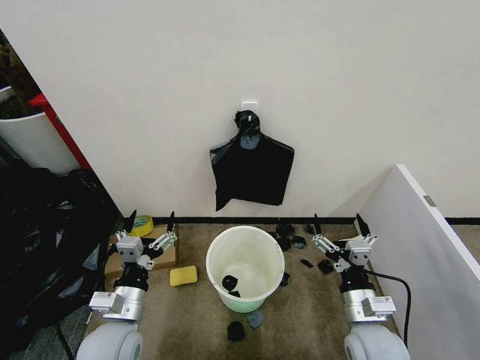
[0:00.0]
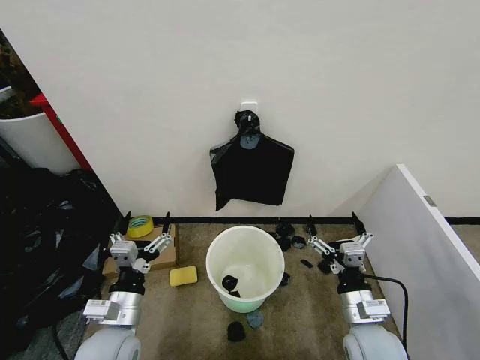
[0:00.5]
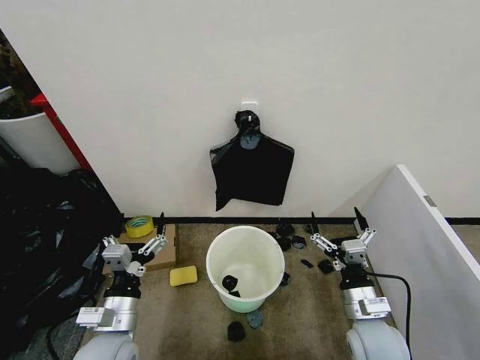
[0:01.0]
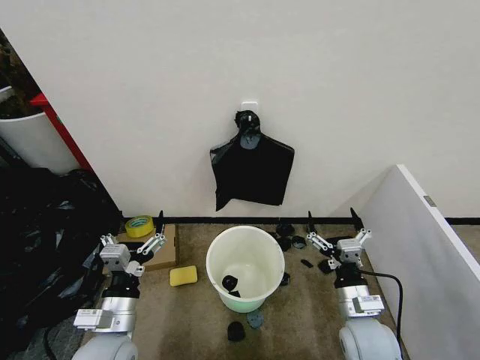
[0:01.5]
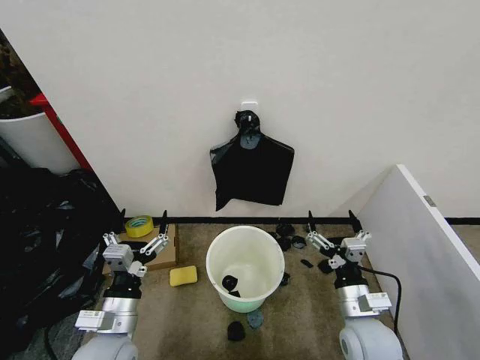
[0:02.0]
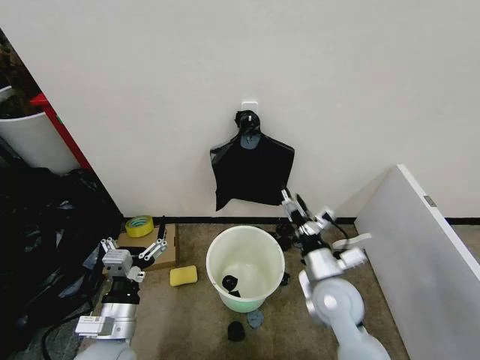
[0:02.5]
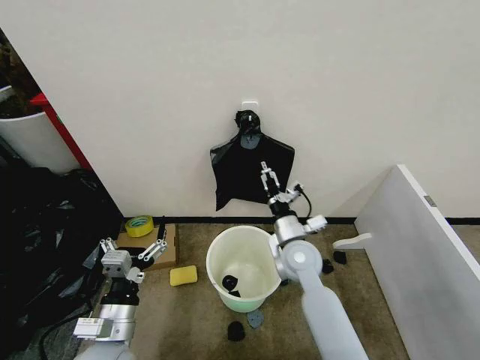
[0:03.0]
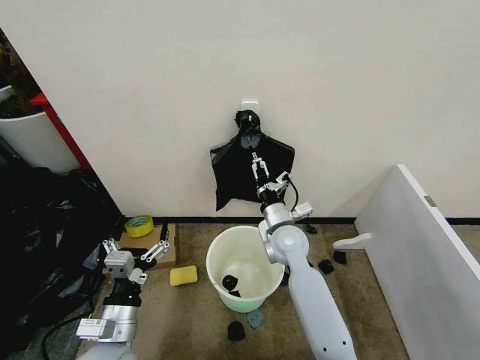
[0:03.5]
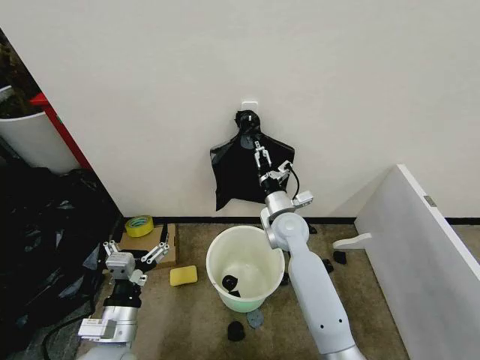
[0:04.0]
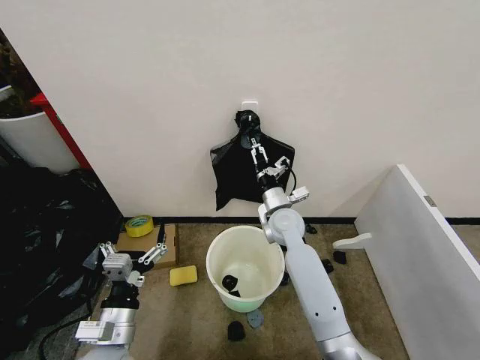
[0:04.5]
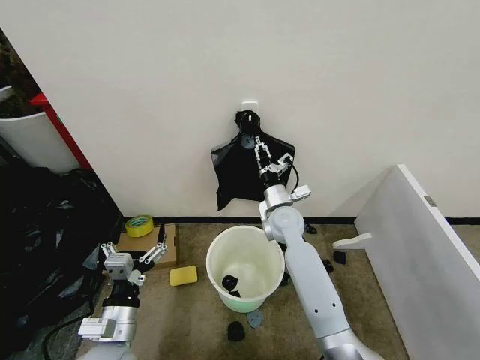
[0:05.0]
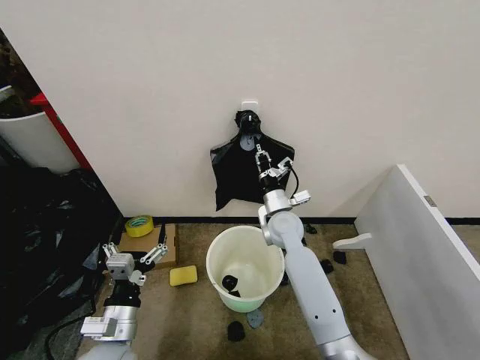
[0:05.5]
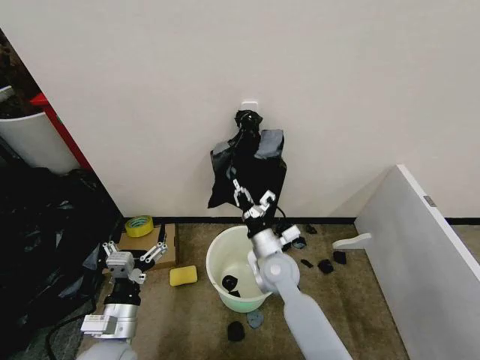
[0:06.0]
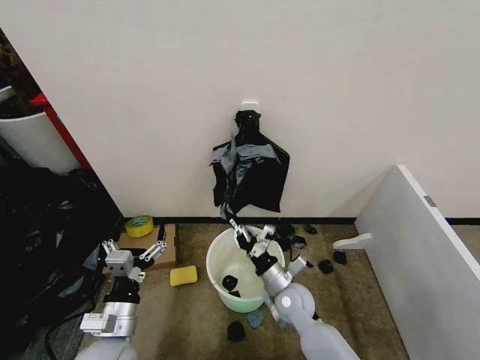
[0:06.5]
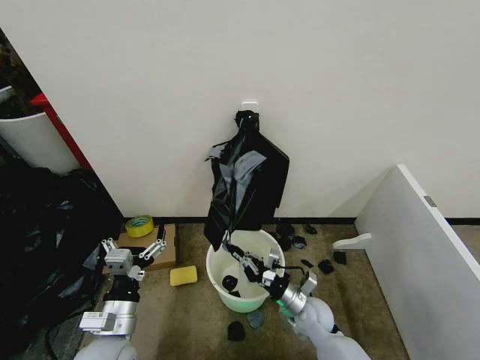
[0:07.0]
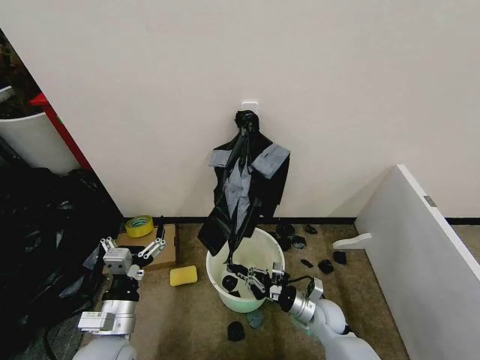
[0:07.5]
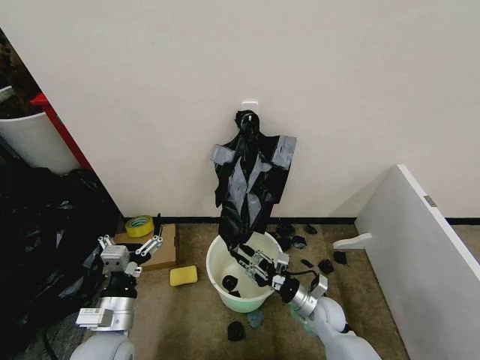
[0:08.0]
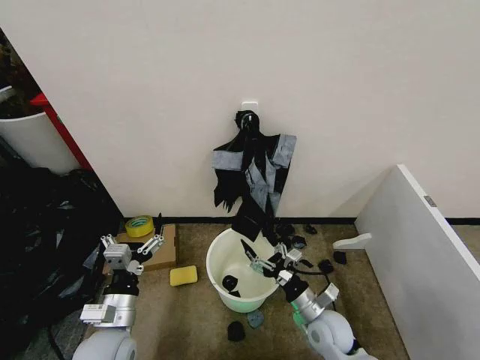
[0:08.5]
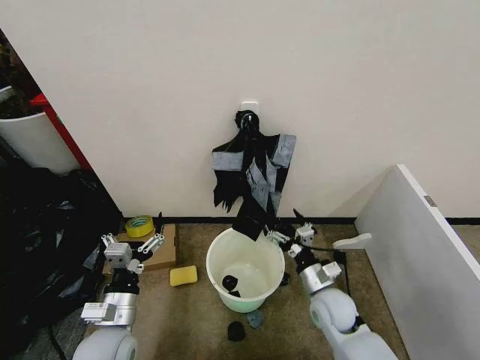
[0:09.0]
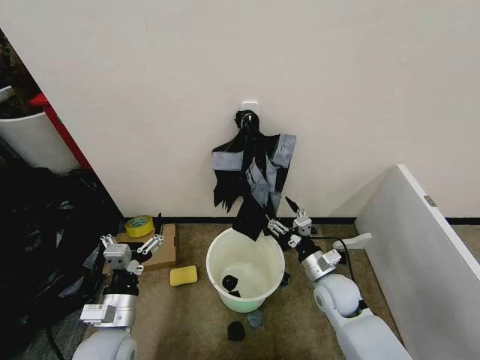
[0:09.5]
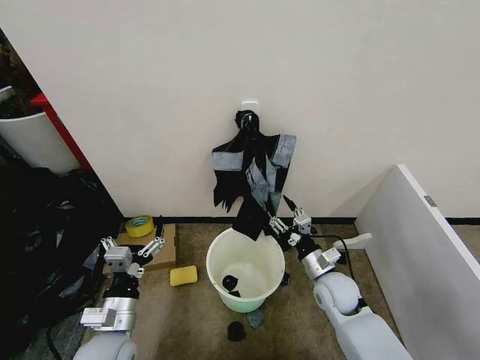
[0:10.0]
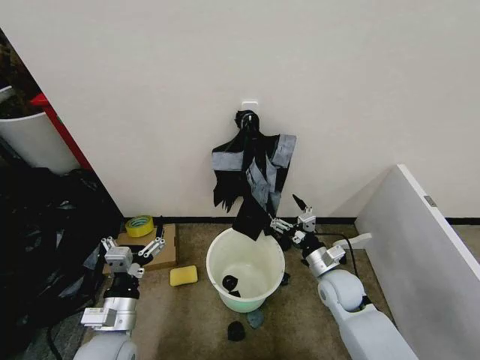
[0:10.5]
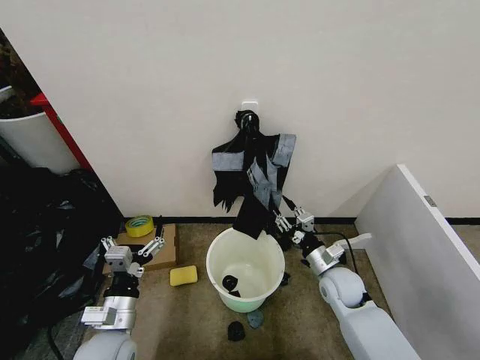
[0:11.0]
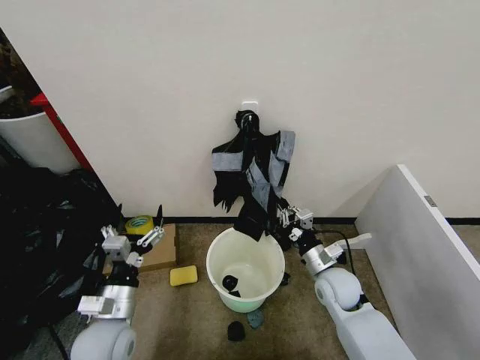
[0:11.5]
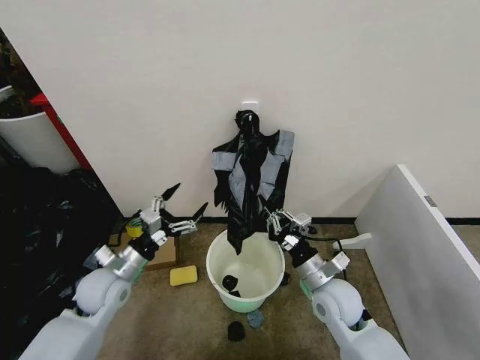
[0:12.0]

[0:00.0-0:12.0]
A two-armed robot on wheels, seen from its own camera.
Task of the whole recording: Place the garbage bag over the trash bin.
0:02.0 to 0:04.0: The right gripper goes roughly 25 cm forward and to the left.
0:04.0 to 0:06.0: The right gripper heads backward and downward, covering approximately 10 cm, and closes its fingers.
0:06.0 to 0:08.0: The right gripper moves downward, to the right and backward, approximately 20 cm.
0:08.0 to 0:10.0: The right gripper travels upward by approximately 10 cm, and opens, then closes once more.
0:10.0 to 0:12.0: The left gripper moves forward, roughly 10 cm. The right gripper shifts about 5 cm upward, and closes its fingers.

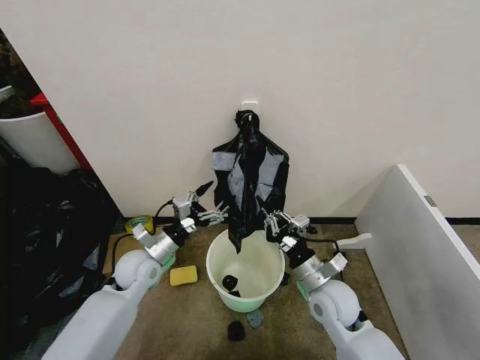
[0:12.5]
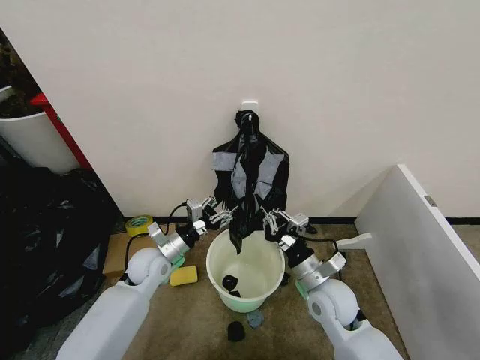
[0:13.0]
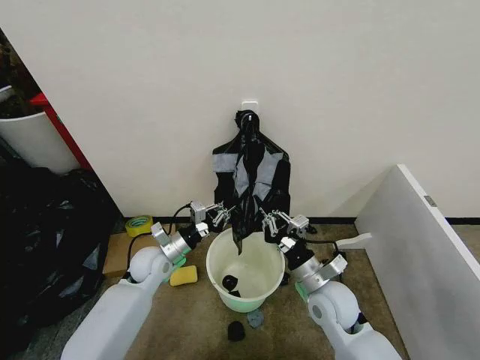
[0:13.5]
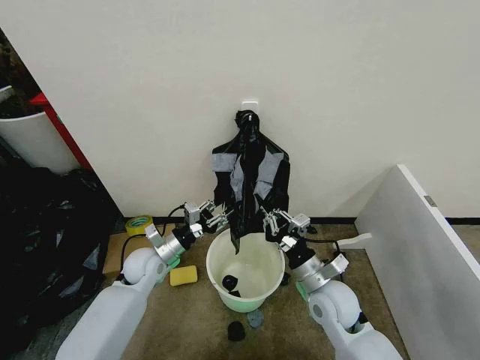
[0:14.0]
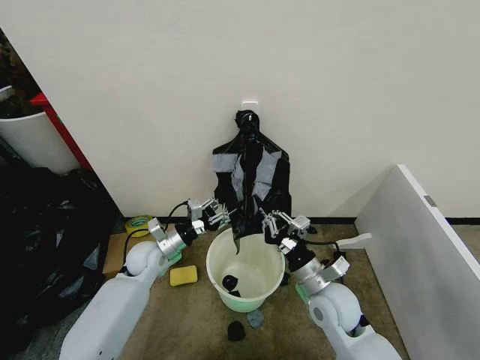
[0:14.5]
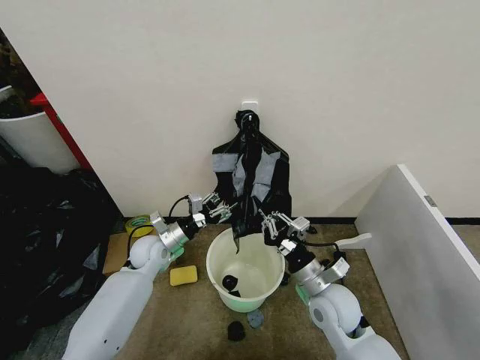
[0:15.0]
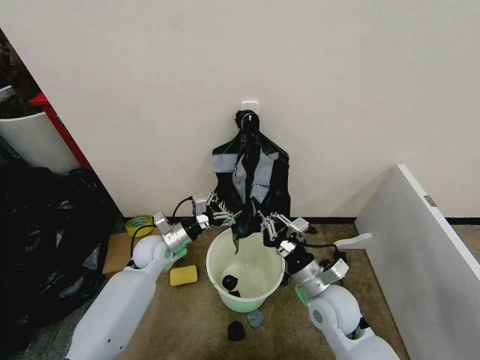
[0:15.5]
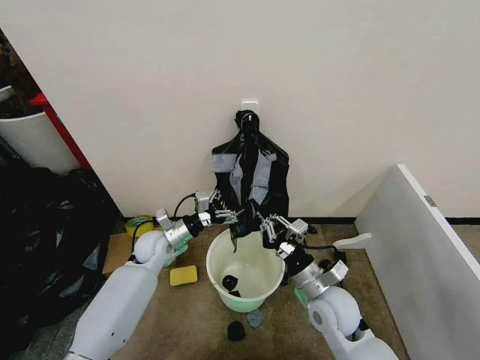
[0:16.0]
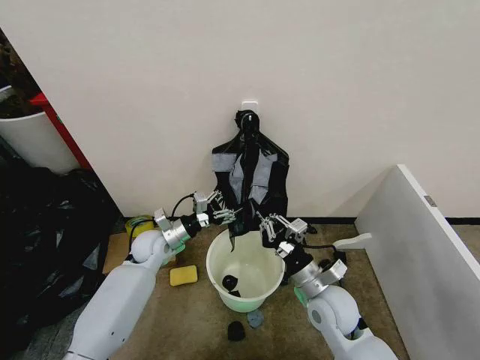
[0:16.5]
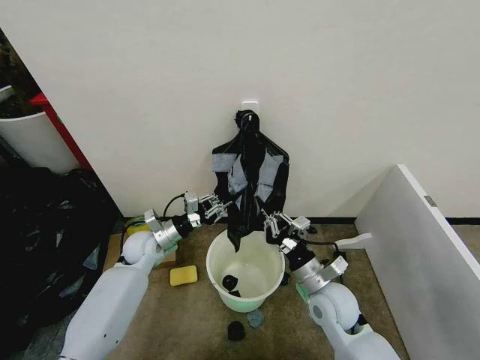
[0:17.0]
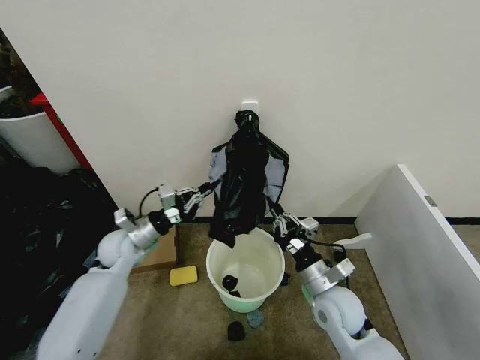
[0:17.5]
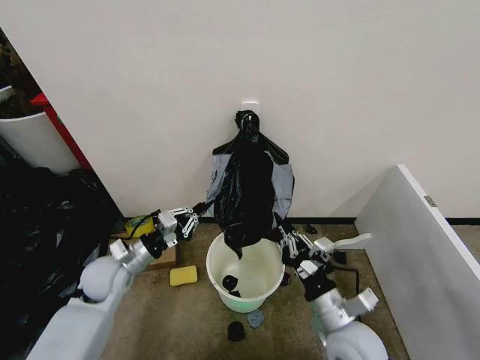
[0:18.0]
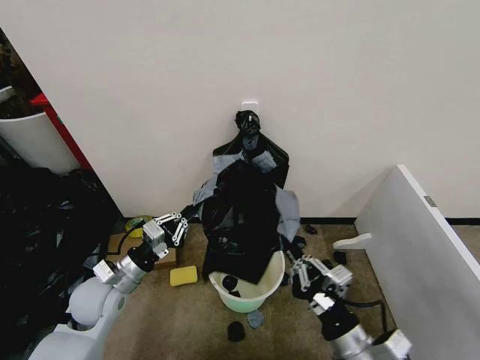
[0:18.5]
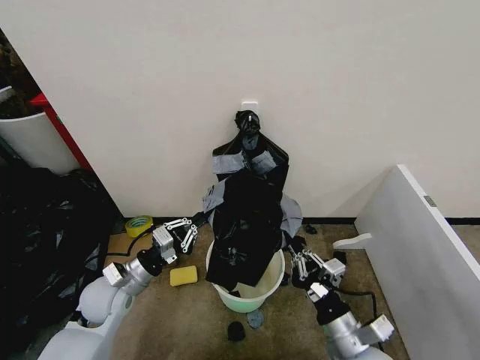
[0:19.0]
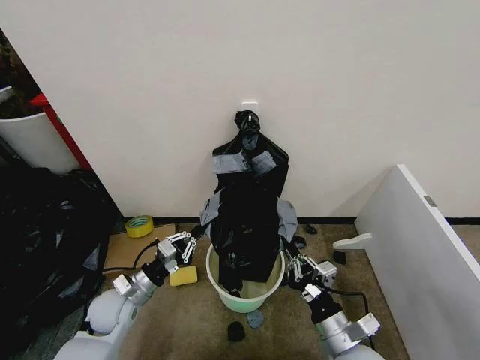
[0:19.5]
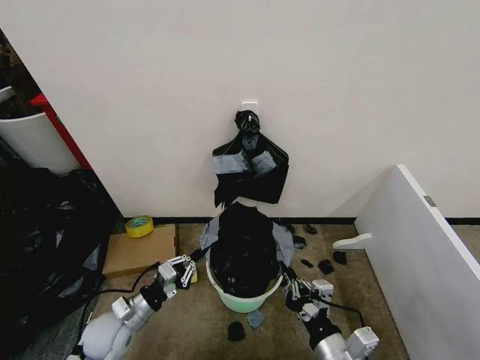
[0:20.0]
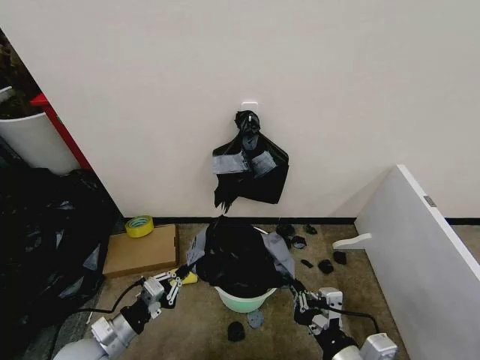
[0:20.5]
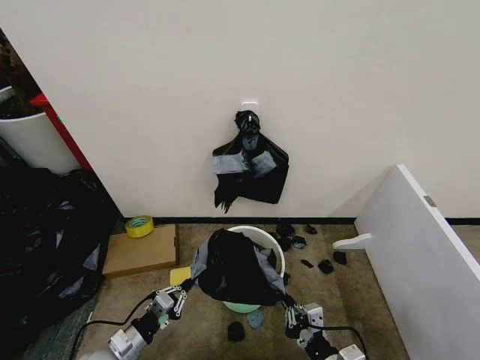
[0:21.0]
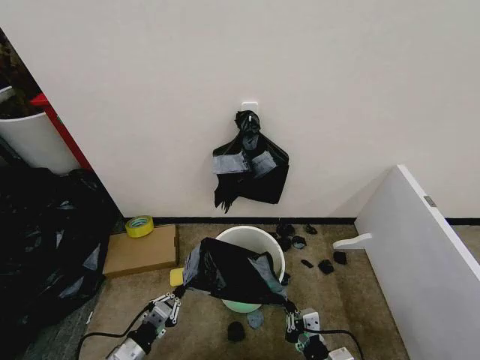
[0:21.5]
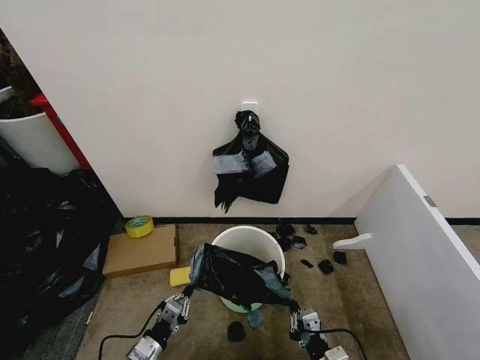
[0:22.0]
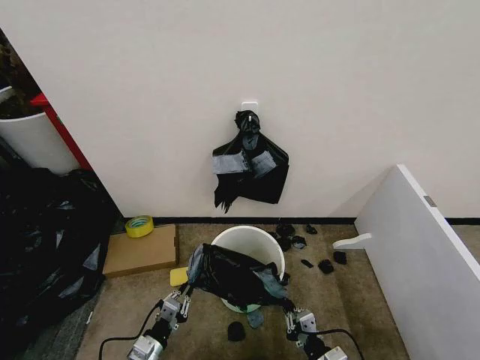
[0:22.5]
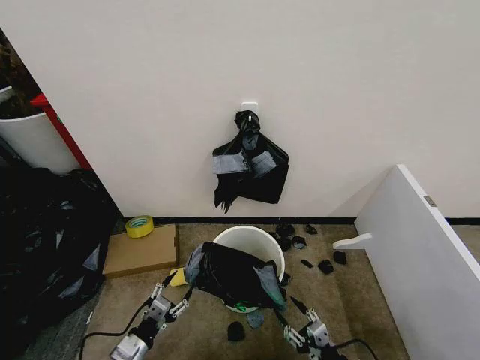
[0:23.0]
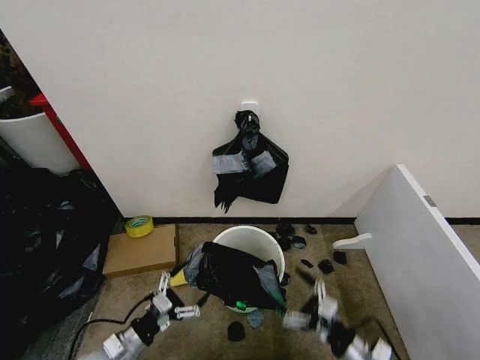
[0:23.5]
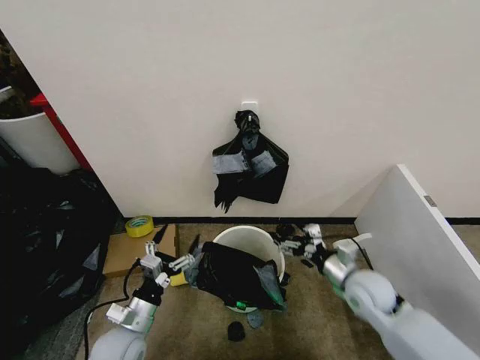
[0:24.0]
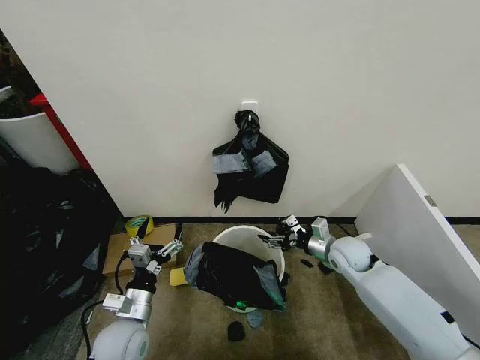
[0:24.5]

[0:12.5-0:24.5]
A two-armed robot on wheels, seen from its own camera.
Task of the whole recording: Place the garbage bag over the trash bin.
0:12.5 to 0:14.5: The left gripper ends up approximately 5 cm from where it was, and closes up.
0:14.5 to 0:16.5: The grippers move only a little.
0:16.5 to 0:18.5: The grippers both shift backward by some 15 cm. The left gripper closes.
0:18.5 to 0:20.5: The right gripper reaches approximately 5 cm downward, then returns, while the left gripper is displaced backward and downward by some 10 cm.
0:20.5 to 0:22.5: The left gripper heads downward, covering some 10 cm. Meanwhile the right gripper shifts some 20 cm downward.
0:22.5 to 0:24.5: The right gripper travels forward by approximately 30 cm, and opens up. Meanwhile the left gripper travels upward and forward by approximately 15 cm, and opens up.

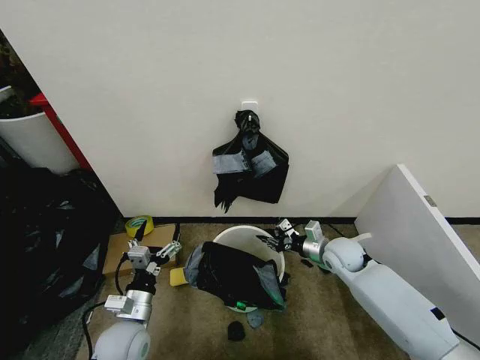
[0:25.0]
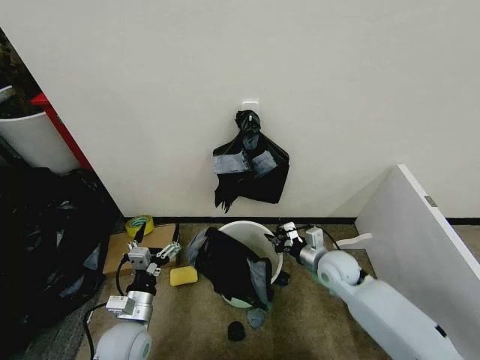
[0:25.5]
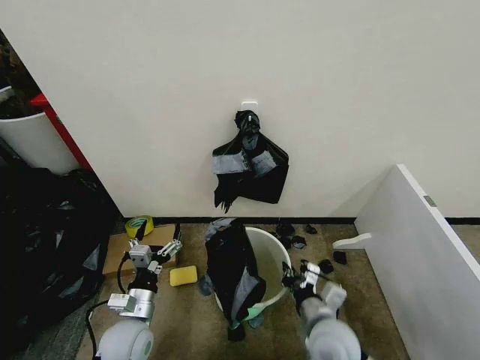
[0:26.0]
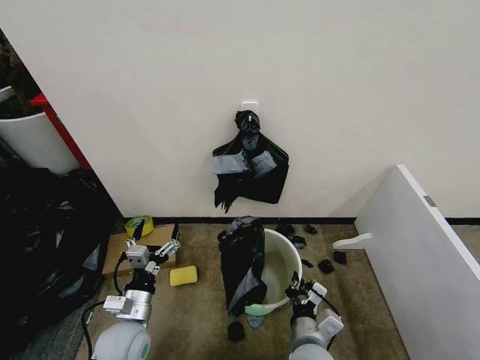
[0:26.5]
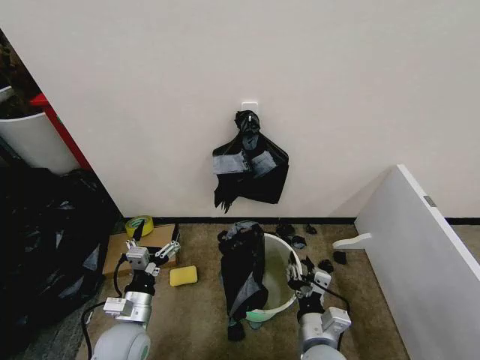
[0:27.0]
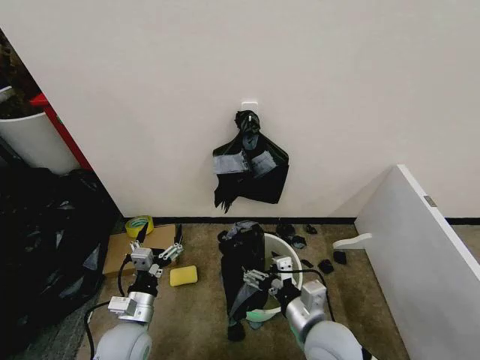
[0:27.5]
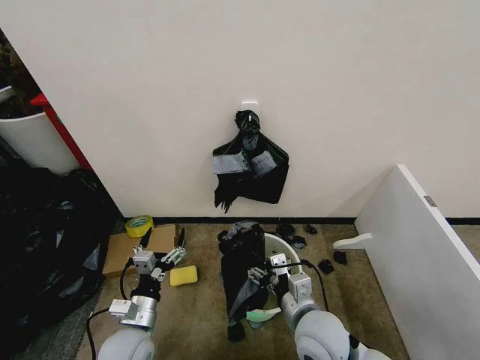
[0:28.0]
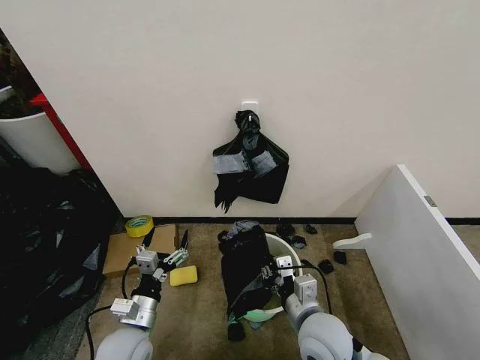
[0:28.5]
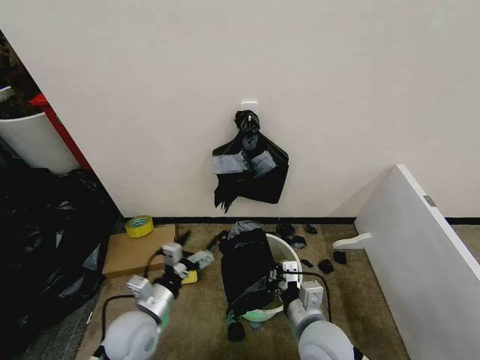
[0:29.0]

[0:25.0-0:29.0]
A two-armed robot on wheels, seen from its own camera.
Task of the whole recording: Place the garbage bag over the trash bin.
0:25.0 to 0:27.0: The right gripper heads backward and to the left, covering roughly 30 cm.
0:27.0 to 0:29.0: The right gripper closes.
